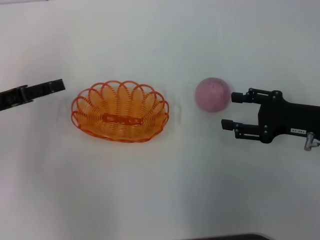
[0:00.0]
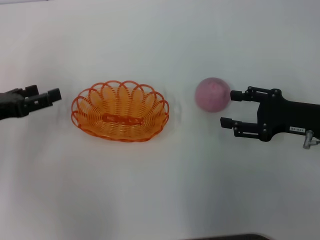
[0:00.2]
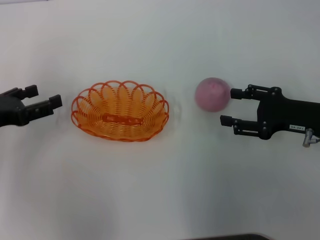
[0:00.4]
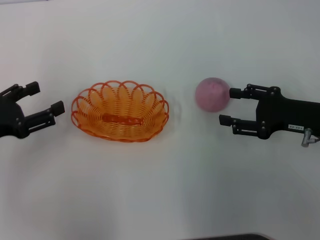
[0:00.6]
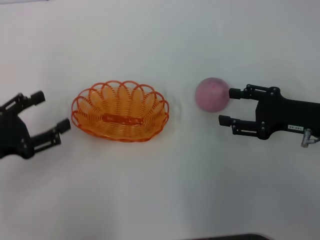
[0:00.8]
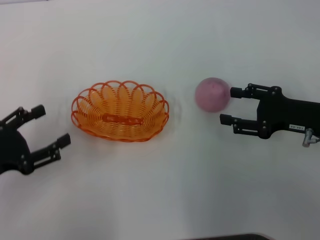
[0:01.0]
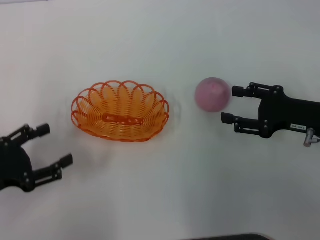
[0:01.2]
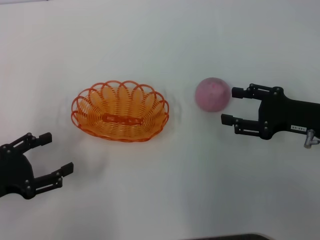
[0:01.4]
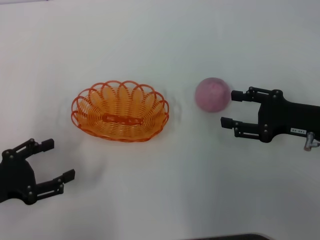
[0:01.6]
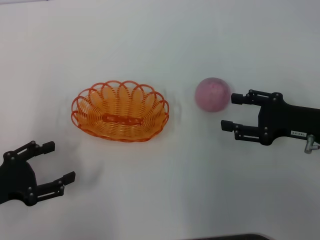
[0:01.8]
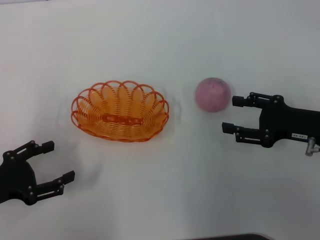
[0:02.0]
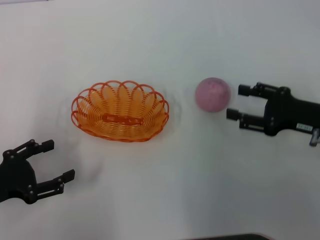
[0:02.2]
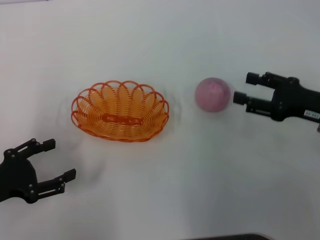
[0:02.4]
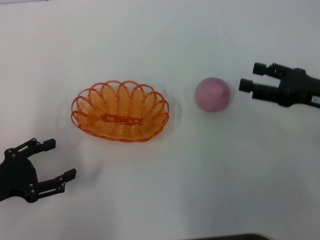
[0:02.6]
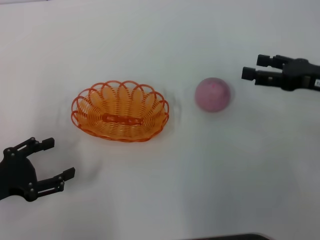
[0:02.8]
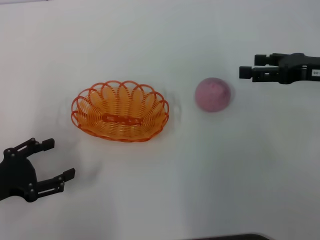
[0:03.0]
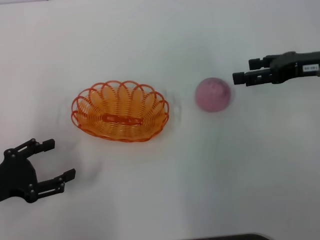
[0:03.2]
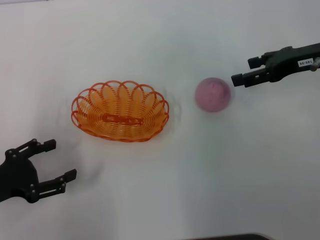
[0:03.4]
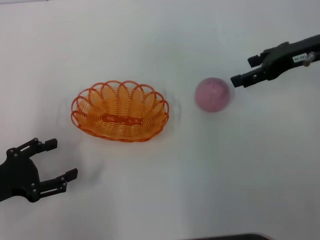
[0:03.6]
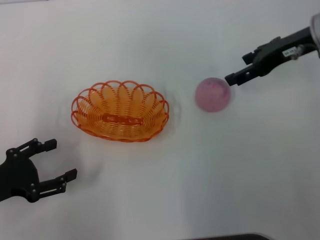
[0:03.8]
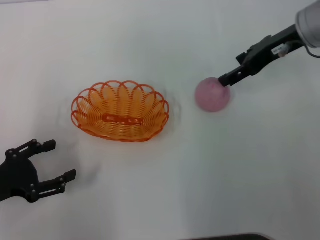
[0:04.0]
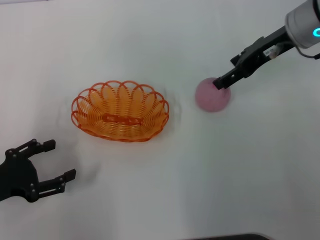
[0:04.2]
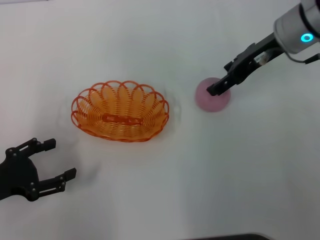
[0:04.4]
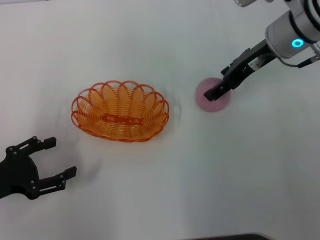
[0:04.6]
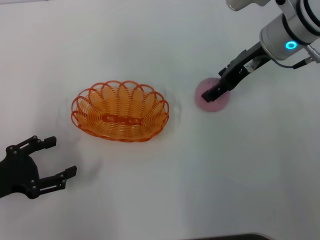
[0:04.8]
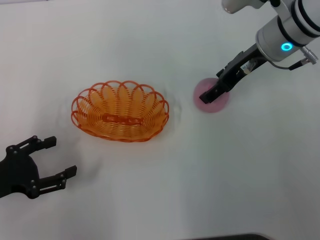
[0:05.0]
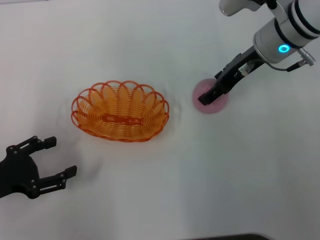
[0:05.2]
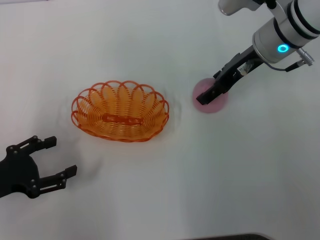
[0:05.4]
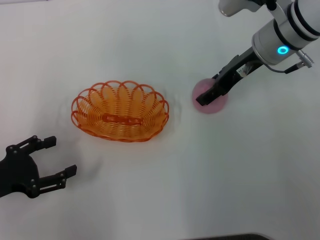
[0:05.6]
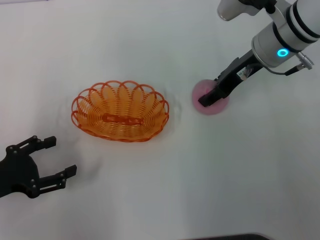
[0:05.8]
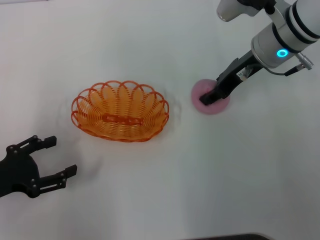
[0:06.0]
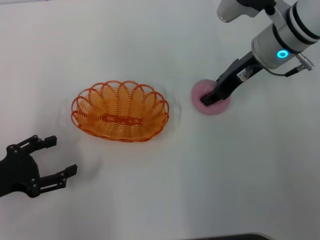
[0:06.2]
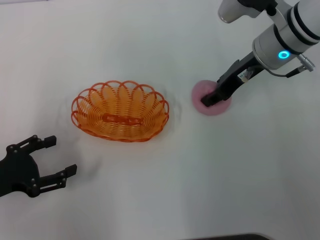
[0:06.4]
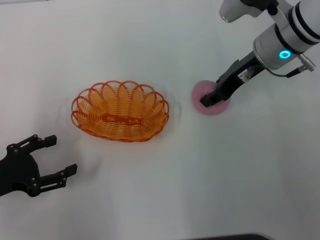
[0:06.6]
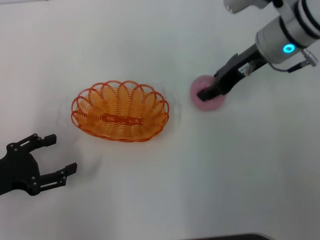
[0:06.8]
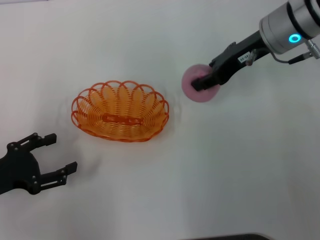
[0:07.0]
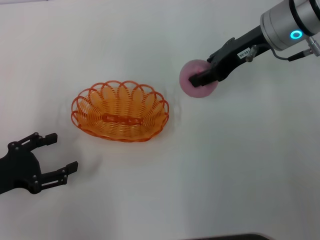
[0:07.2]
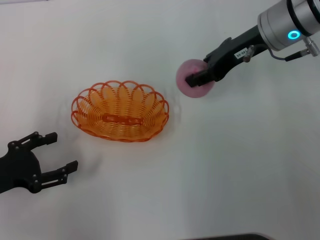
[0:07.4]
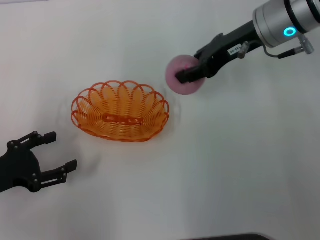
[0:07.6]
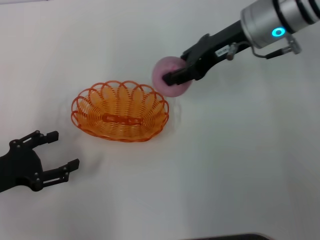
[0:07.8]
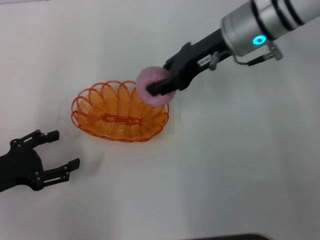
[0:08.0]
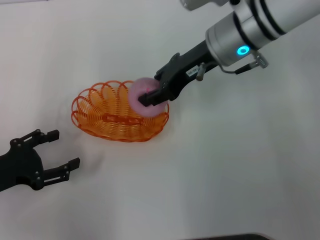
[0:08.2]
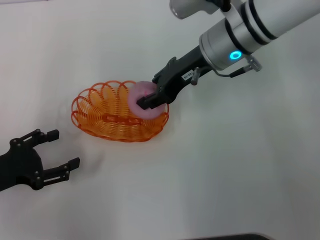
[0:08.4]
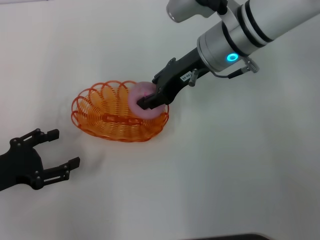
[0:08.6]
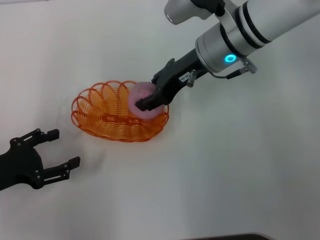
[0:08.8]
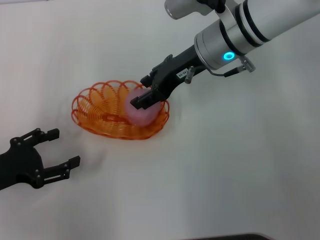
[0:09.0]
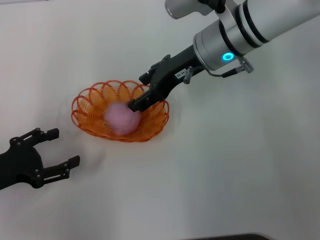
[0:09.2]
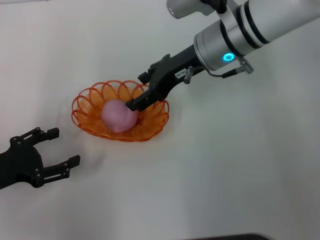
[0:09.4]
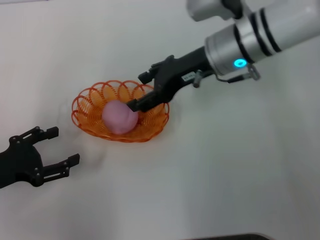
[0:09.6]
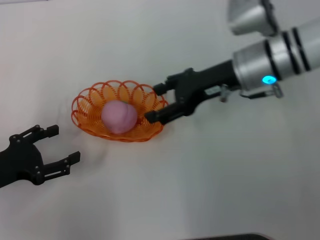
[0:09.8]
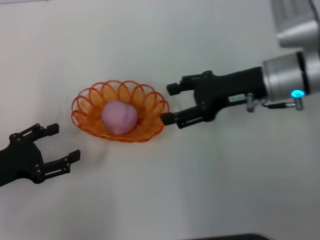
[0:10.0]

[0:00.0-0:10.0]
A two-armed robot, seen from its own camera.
Step, 0:00.2 to 0:07.4: Pick up the peach with the right gripper.
Step, 0:07.6 to 0:10.0: Place the peach into the basket with the right gripper.
0:00.0 to 0:01.4: The left gripper travels backward by about 10 cm.
0:01.4 to 0:02.8: The right gripper shifts by approximately 5 cm.
0:02.8 to 0:04.2: The right gripper moves forward, to the left and upward, approximately 15 cm.
0:04.2 to 0:05.8: The right gripper changes place by some 5 cm.
0:05.8 to 0:07.2: The right gripper closes up.
0:07.2 to 0:08.6: The right gripper shifts roughly 10 cm to the left.
0:08.6 to 0:10.0: The right gripper goes some 10 cm to the right and backward, and opens its fingers.

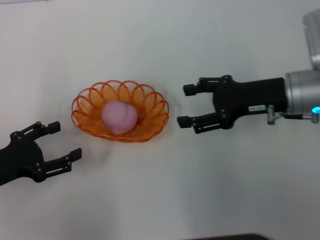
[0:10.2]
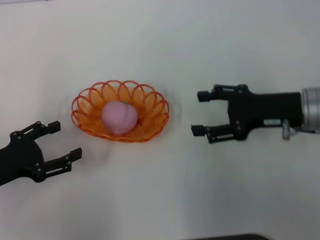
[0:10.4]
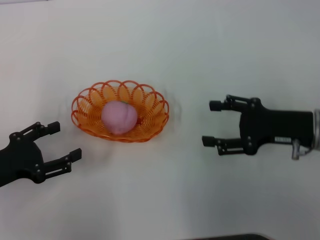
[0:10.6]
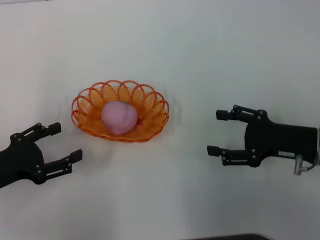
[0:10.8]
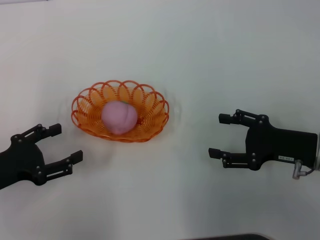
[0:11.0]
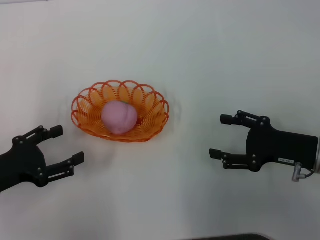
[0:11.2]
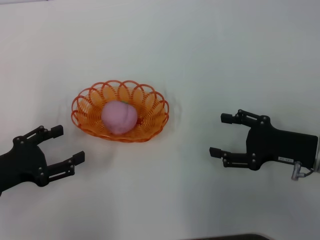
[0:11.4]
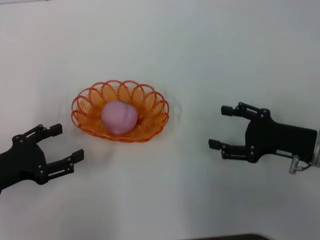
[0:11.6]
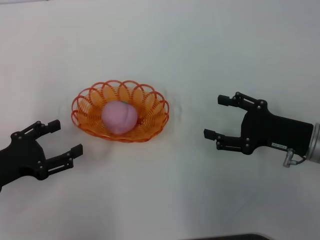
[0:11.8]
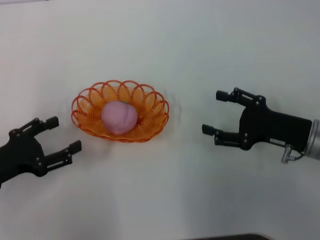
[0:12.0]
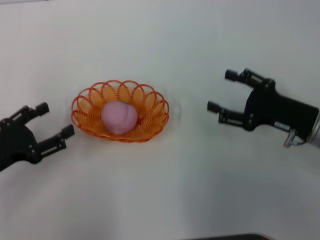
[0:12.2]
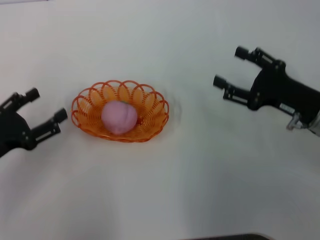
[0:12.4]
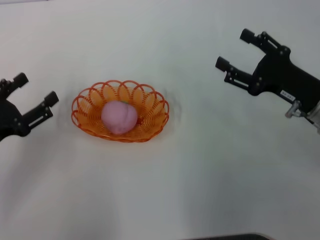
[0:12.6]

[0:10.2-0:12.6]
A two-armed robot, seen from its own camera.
0:10.2 to 0:11.4: The right gripper is displaced backward and downward by some 10 cm.

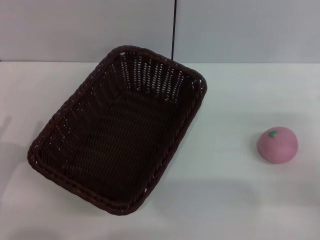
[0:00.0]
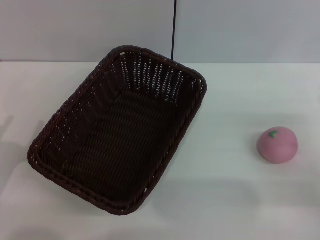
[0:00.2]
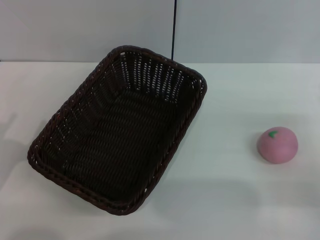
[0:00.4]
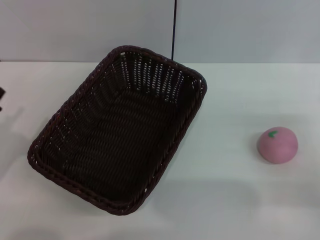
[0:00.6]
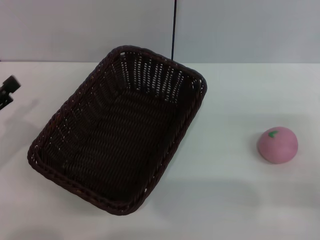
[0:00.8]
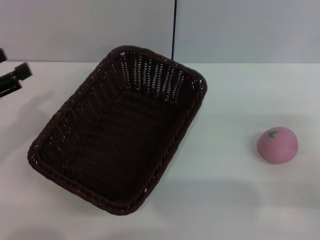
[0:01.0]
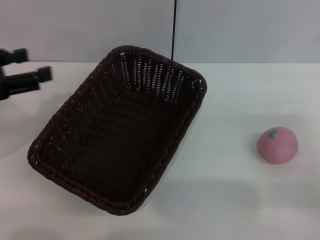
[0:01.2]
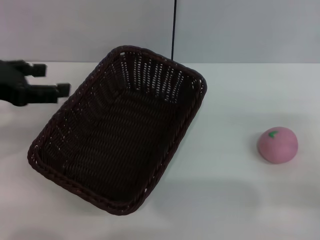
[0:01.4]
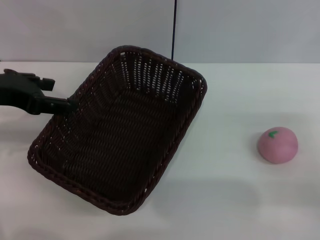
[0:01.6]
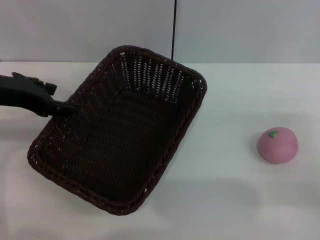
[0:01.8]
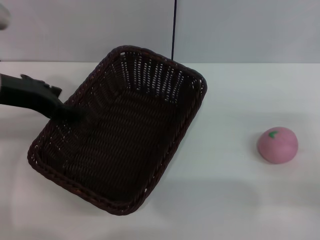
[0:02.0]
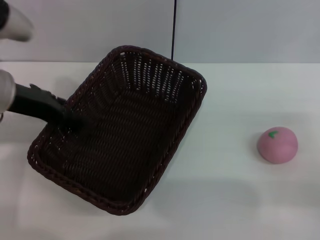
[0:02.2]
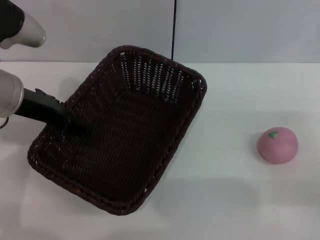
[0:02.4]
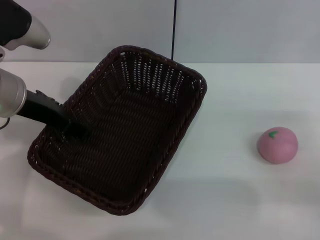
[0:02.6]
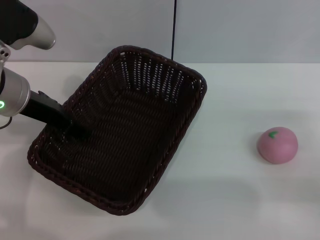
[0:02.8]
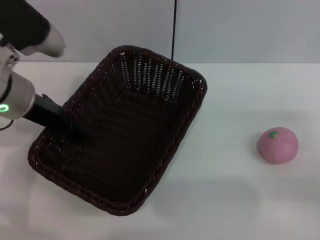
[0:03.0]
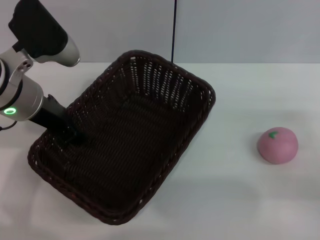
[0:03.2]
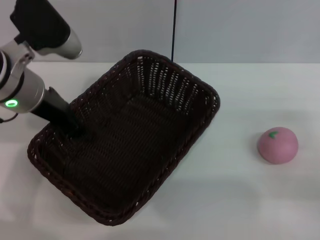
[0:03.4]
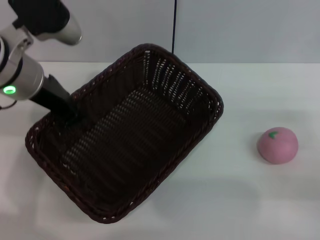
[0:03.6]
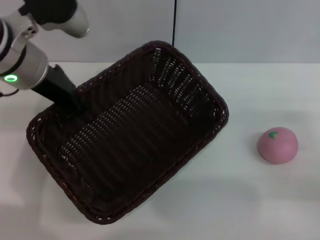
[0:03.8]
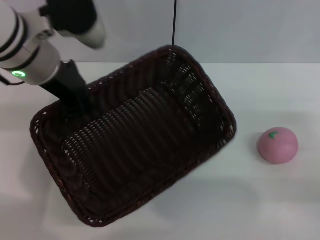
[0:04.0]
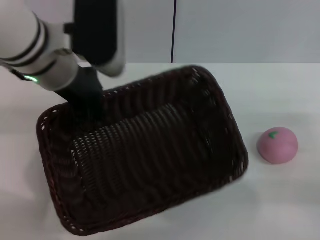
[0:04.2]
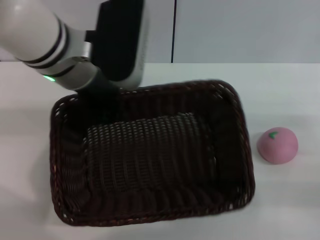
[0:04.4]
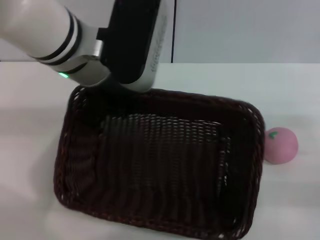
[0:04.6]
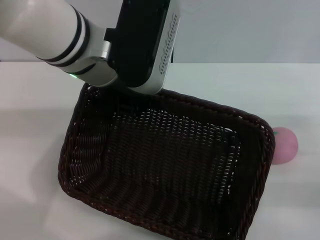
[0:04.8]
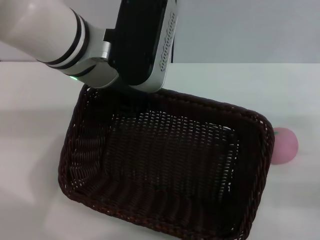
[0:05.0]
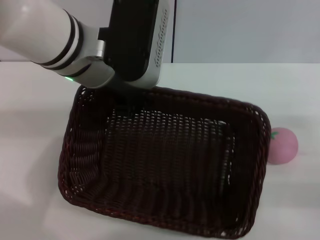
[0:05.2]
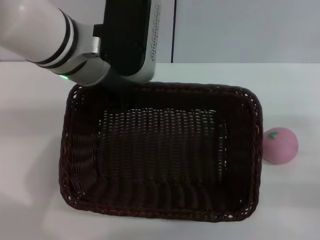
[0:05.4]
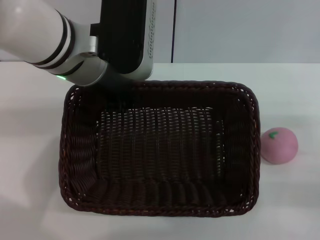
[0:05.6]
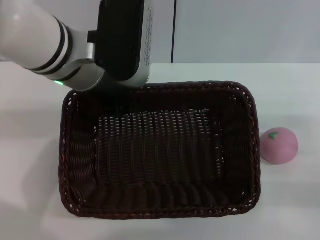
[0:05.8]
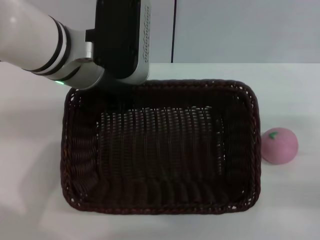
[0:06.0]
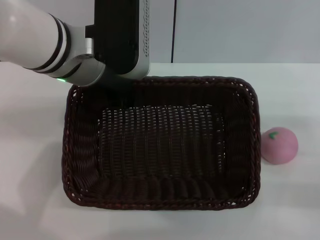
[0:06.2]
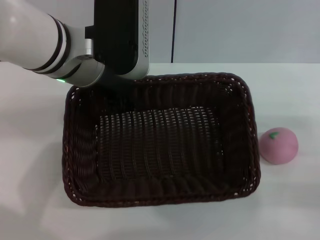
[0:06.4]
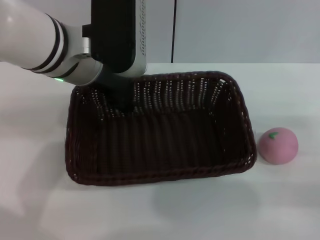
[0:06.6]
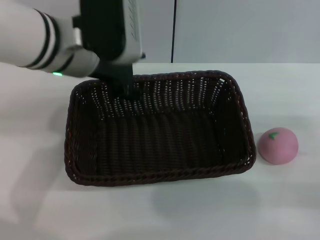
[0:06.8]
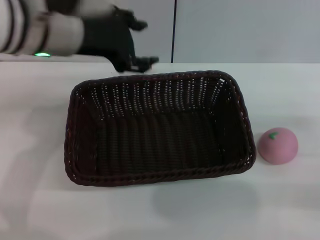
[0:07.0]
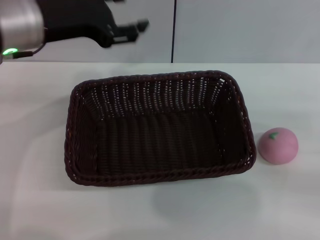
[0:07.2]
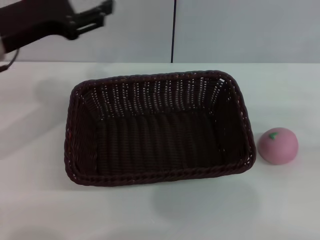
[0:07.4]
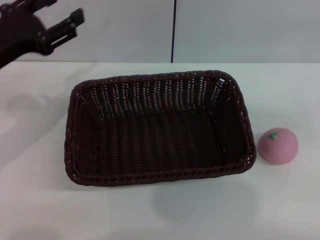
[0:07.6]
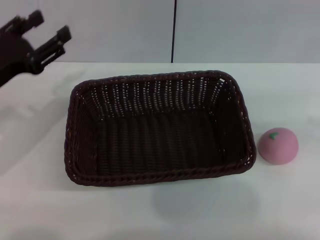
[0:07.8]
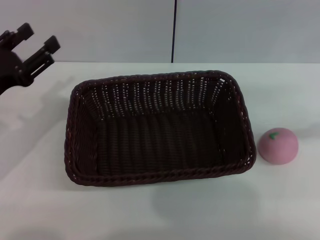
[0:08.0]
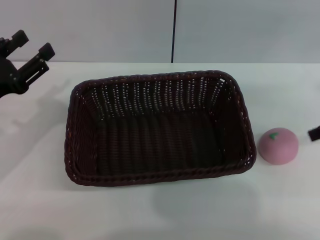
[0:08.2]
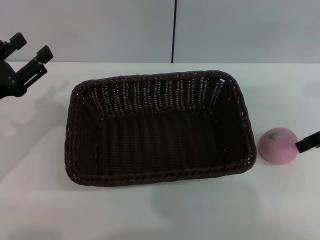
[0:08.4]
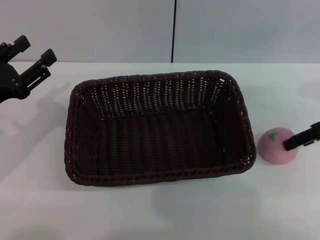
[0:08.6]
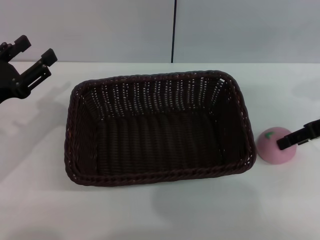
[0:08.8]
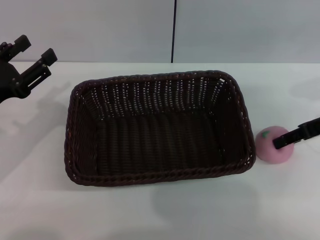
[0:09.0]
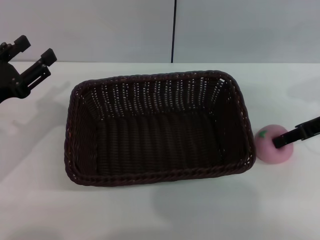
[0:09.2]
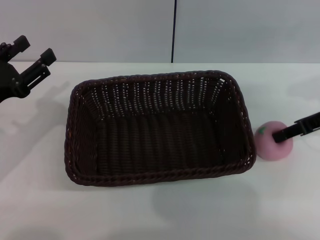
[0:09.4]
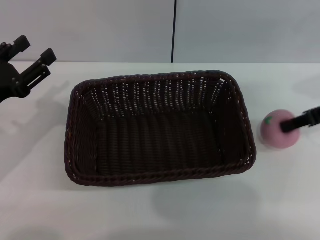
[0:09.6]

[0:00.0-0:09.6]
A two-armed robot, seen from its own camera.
Step, 0:00.0 to 0:03.8: Pick up the dark basket with the left gripper.
0:00.0 to 0:01.6: The left gripper moves upward and forward, roughly 20 cm.
0:01.6 to 0:03.2: The left gripper is displaced to the right by about 10 cm, and closes.
0:03.2 to 0:04.8: The left gripper moves to the right and upward, approximately 10 cm, and closes.
0:06.4 to 0:08.0: The left gripper shifts approximately 20 cm to the left and downward, and opens up. The right gripper shifts about 20 cm upward and forward.
0:08.0 to 0:09.6: The right gripper shifts roughly 10 cm to the left and downward, and closes its fingers.
